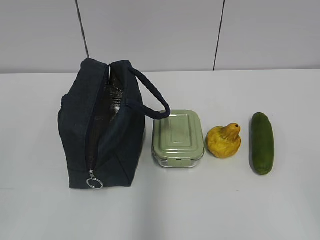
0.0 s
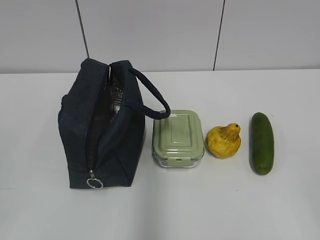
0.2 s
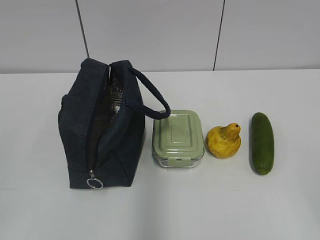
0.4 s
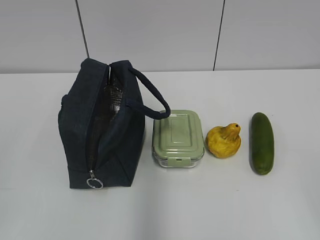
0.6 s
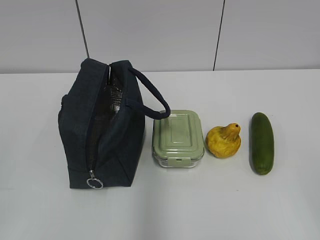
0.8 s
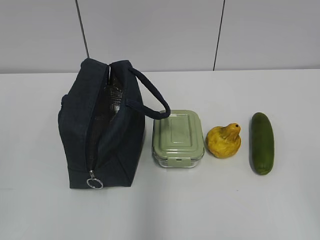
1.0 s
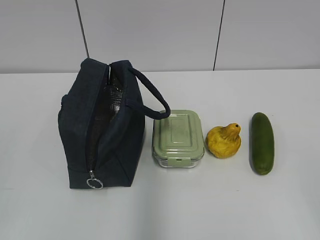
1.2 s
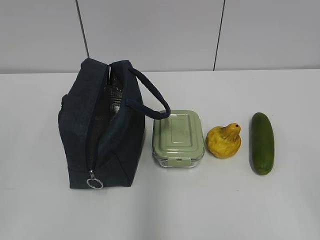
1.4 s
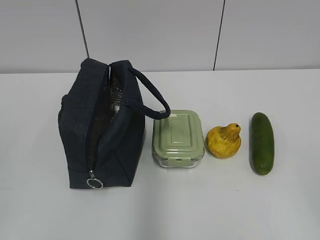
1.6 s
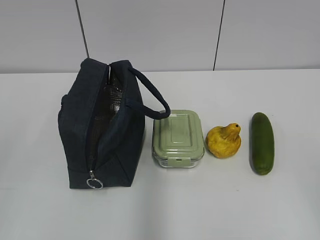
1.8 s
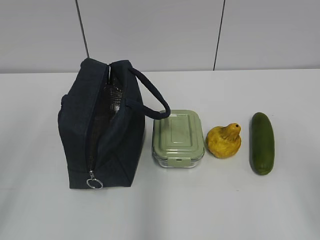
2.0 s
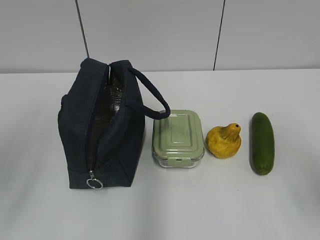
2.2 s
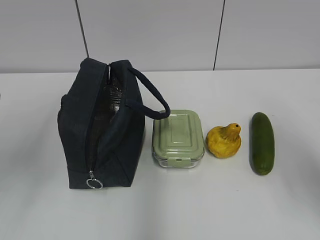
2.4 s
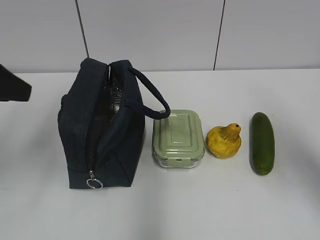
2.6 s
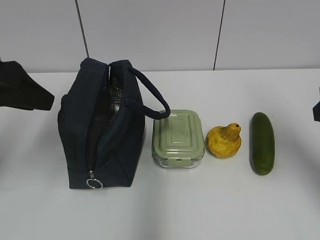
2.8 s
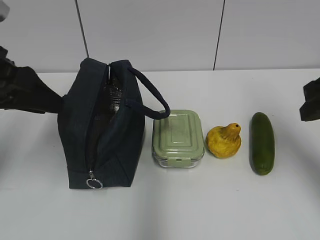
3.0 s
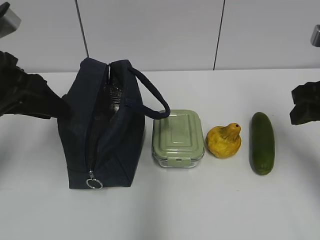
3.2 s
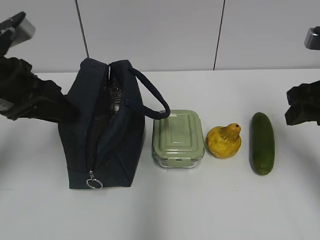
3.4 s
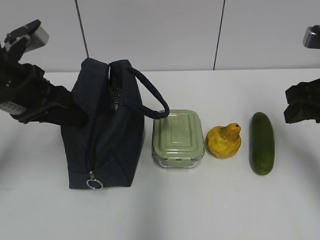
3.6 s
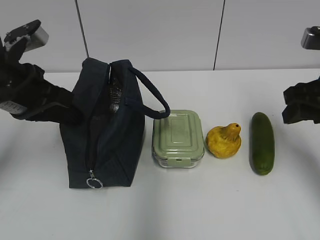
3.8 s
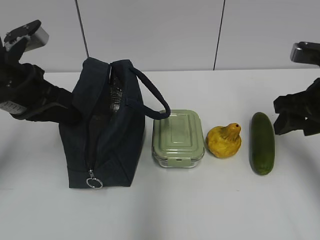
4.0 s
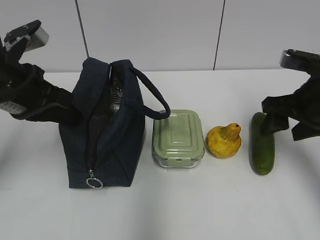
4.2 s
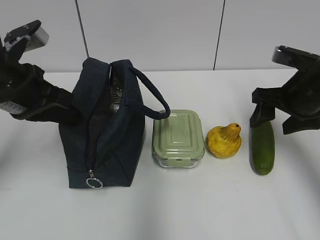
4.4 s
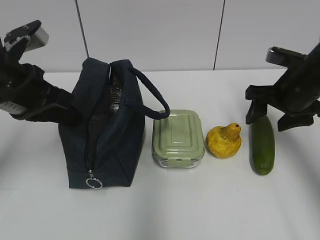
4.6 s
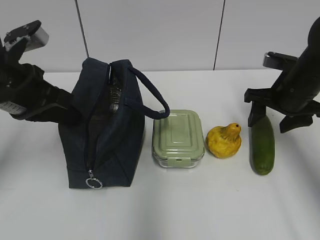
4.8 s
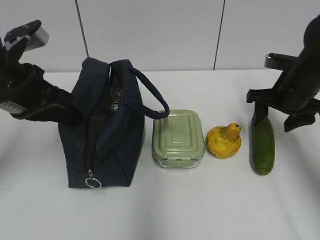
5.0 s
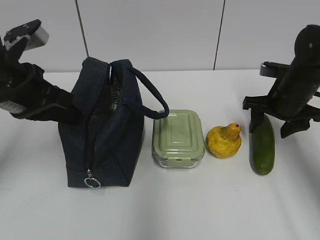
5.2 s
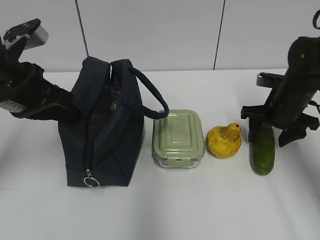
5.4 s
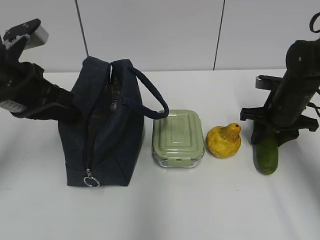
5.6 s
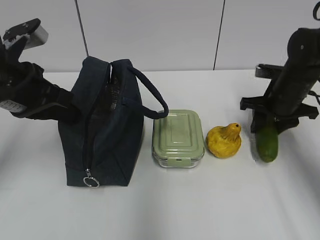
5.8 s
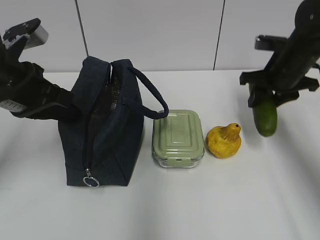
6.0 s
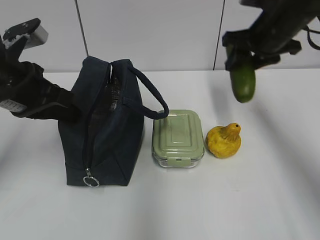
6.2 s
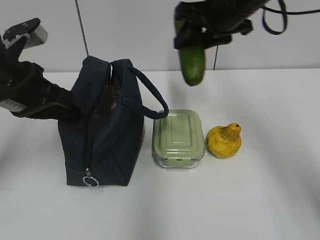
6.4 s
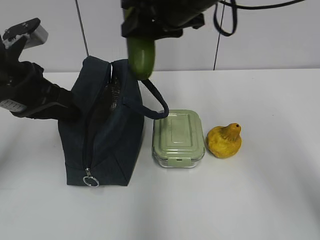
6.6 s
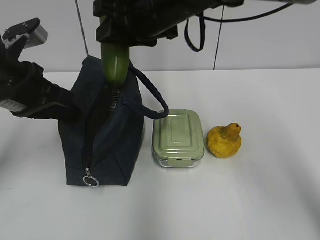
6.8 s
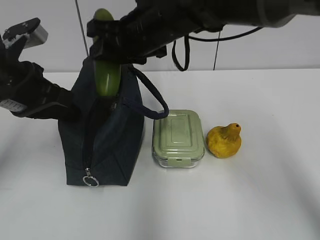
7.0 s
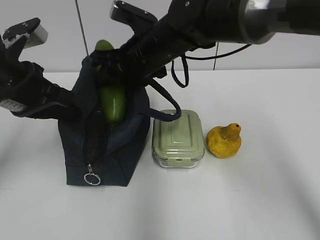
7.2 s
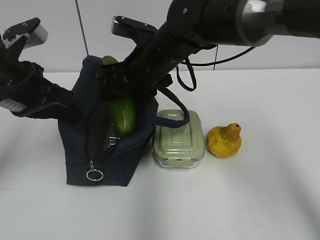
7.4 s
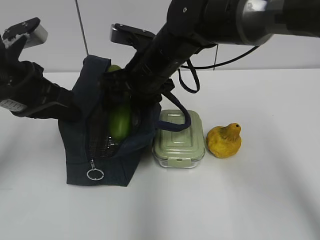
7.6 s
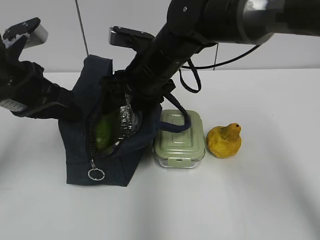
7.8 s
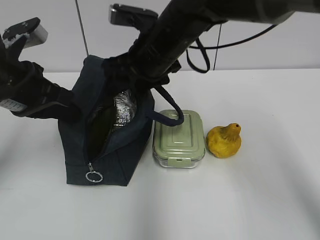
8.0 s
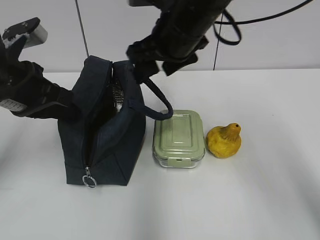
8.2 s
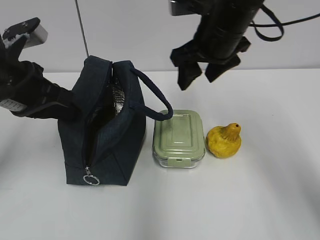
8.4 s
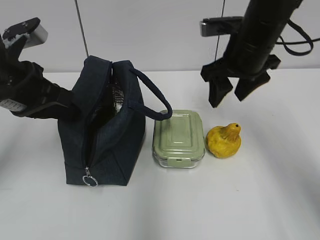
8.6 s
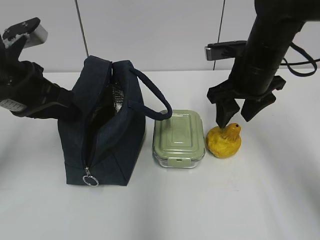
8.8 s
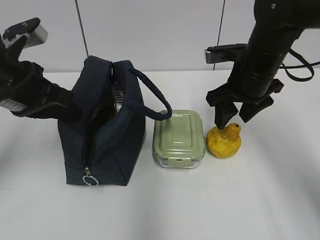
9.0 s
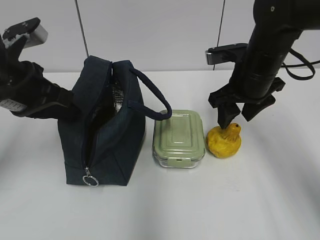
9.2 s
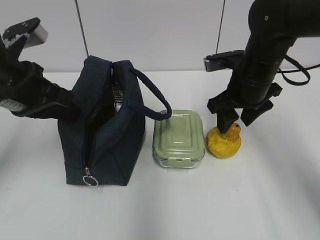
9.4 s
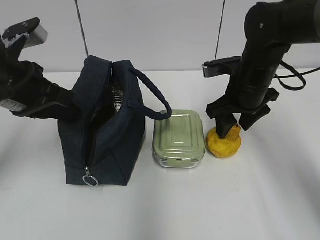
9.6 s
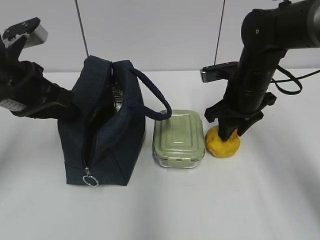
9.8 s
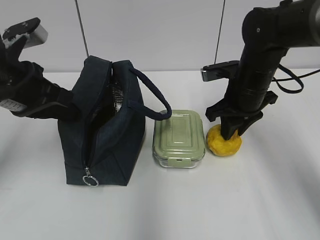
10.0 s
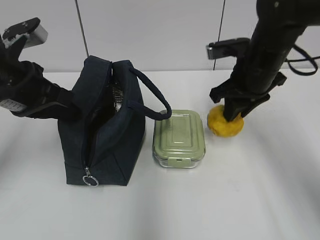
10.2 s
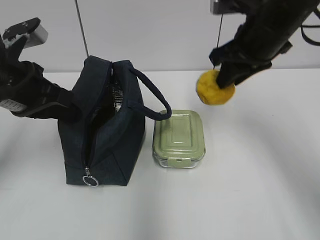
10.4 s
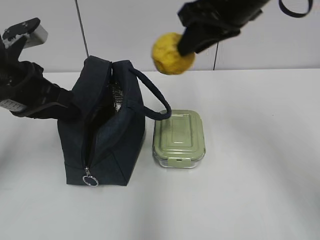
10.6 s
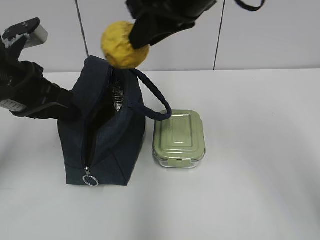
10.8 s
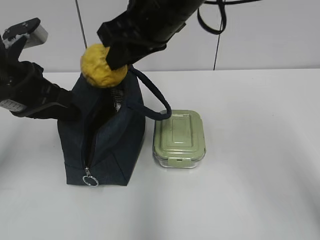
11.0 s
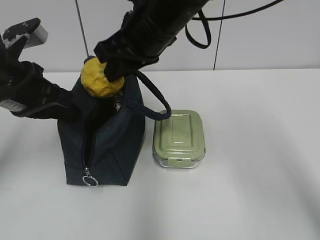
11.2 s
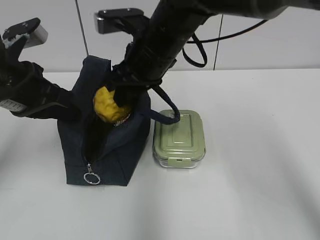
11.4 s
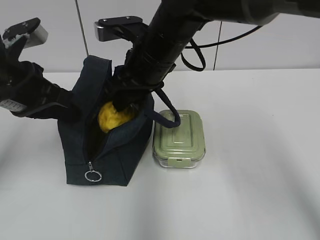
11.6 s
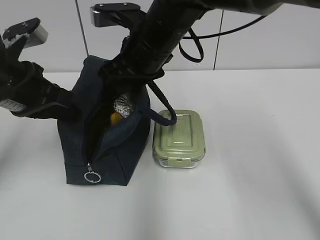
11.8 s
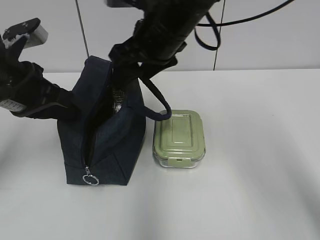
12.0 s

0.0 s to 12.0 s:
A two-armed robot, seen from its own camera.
1.6 to 3.0 s: The two grippers go approximately 25 cm forward.
3.0 to 4.4 s: The left gripper shifts by approximately 5 cm, and closes up. The right gripper heads forward and downward, covering some 10 cm.
4.4 to 6.0 s: The right gripper is displaced forward by about 10 cm, goes downward and returns, approximately 10 cm each way, and closes up.
6.0 to 7.6 s: The right gripper is displaced to the left by approximately 25 cm.
7.6 to 9.0 s: The right gripper heads to the right, covering roughly 15 cm.
9.0 to 10.4 s: The right gripper heads upward, covering some 10 cm, and closes up.
10.4 to 12.0 s: The right gripper goes approximately 10 cm to the left, and opens its fingers.

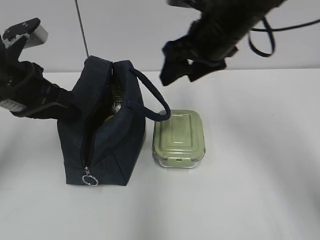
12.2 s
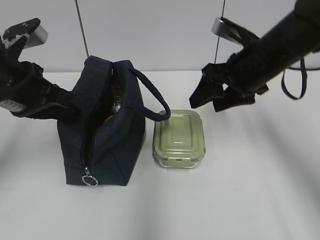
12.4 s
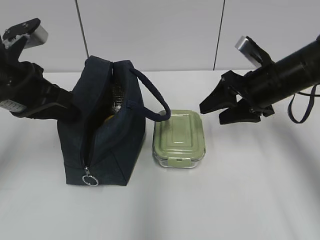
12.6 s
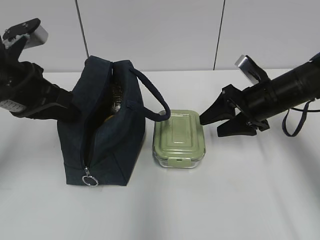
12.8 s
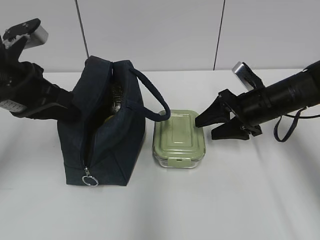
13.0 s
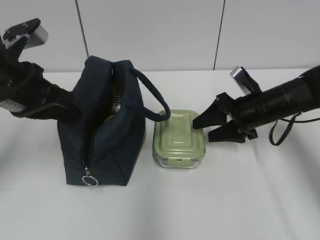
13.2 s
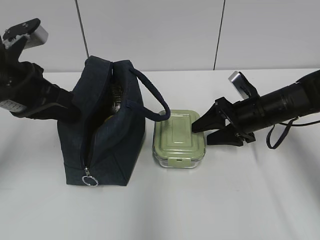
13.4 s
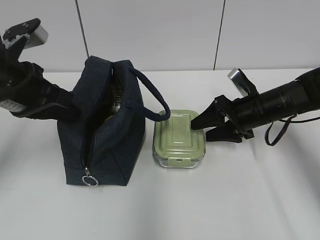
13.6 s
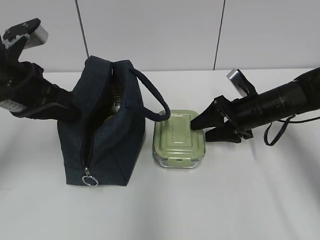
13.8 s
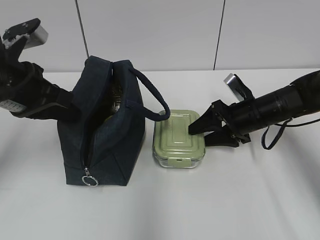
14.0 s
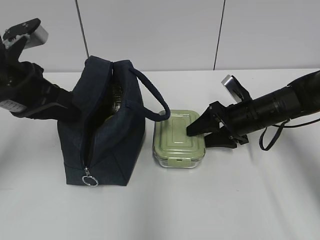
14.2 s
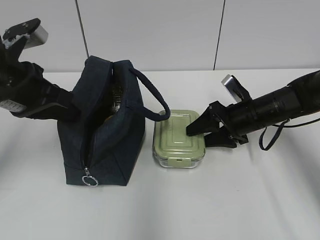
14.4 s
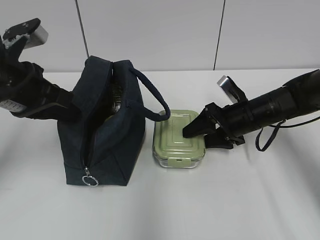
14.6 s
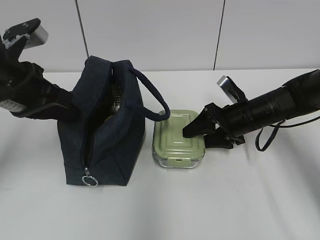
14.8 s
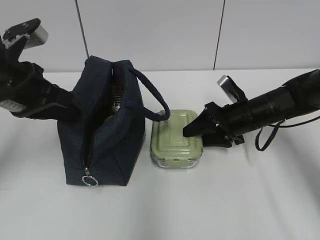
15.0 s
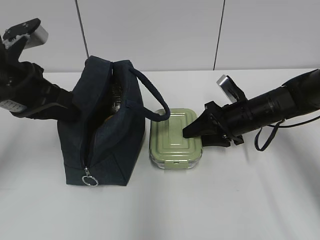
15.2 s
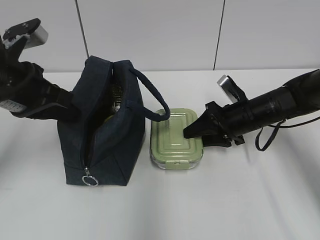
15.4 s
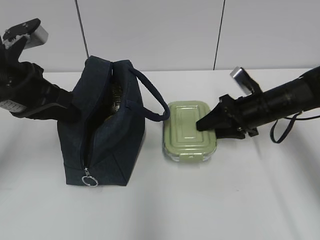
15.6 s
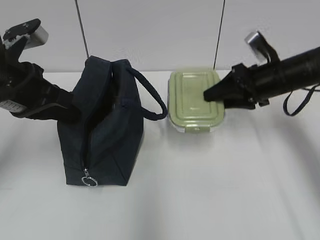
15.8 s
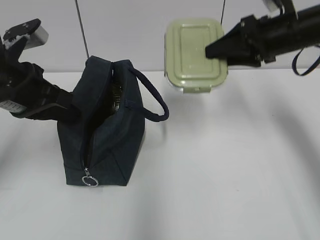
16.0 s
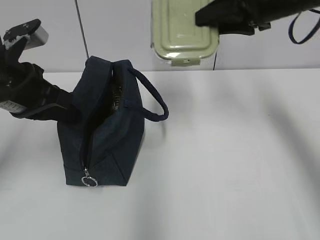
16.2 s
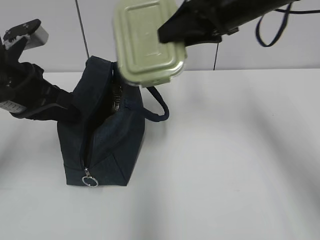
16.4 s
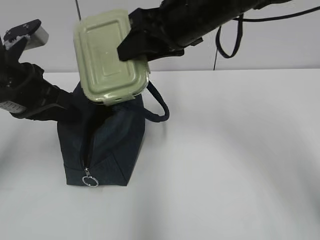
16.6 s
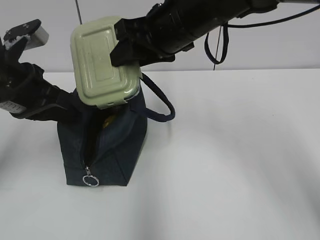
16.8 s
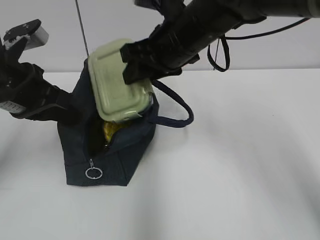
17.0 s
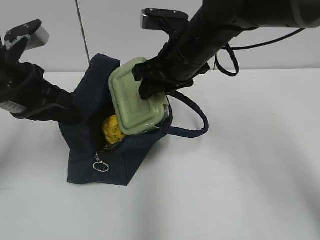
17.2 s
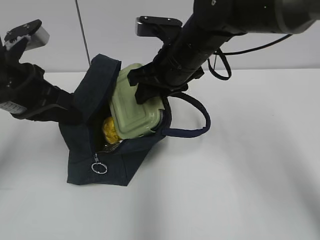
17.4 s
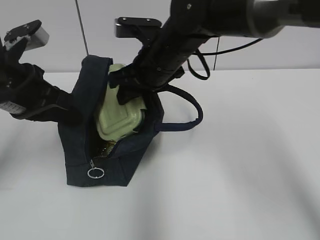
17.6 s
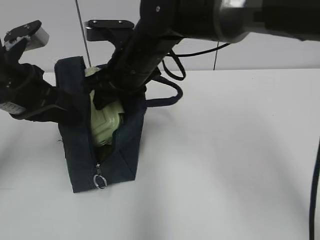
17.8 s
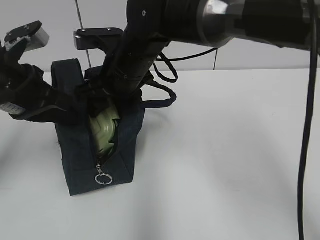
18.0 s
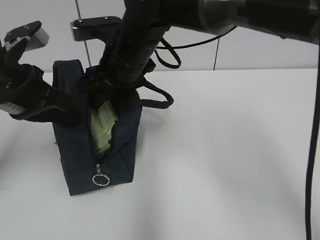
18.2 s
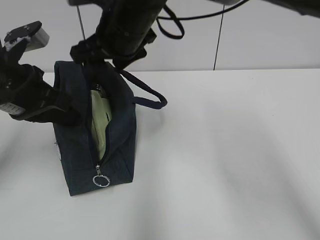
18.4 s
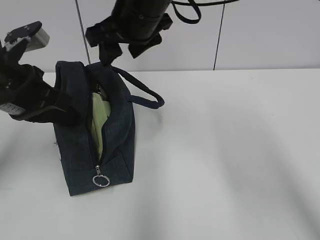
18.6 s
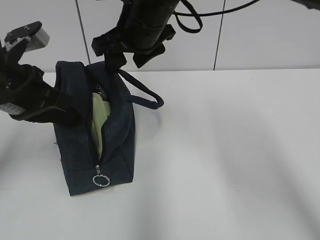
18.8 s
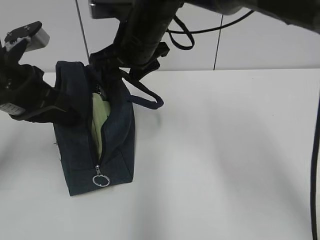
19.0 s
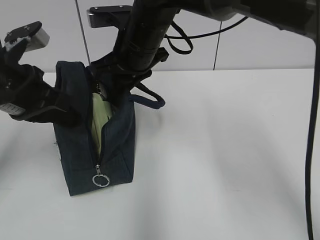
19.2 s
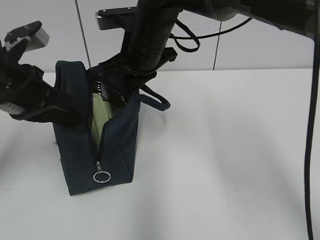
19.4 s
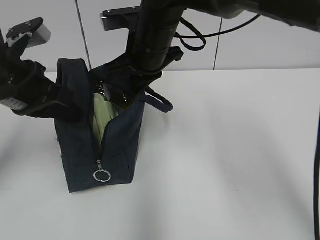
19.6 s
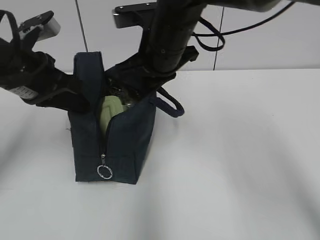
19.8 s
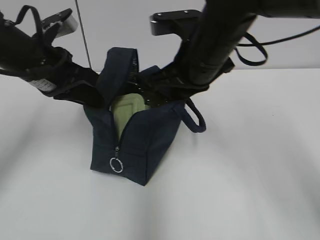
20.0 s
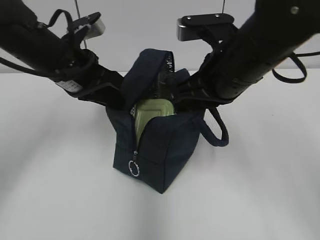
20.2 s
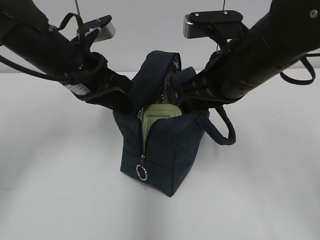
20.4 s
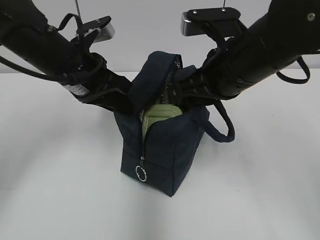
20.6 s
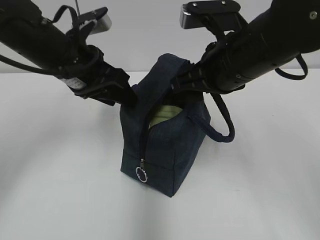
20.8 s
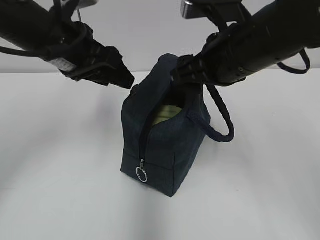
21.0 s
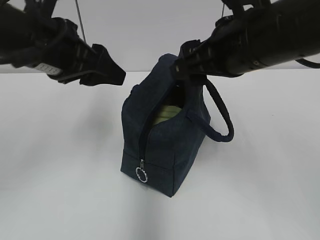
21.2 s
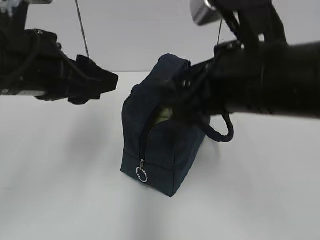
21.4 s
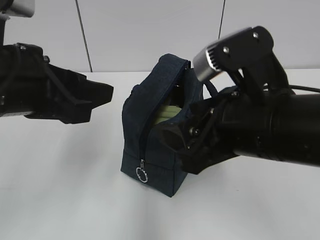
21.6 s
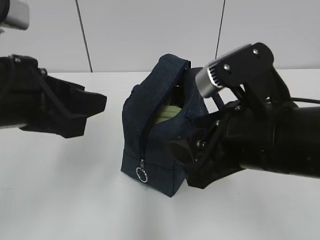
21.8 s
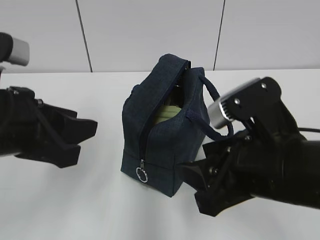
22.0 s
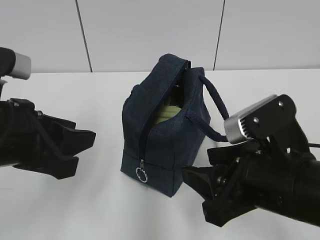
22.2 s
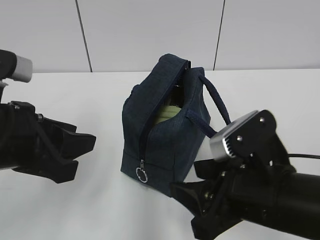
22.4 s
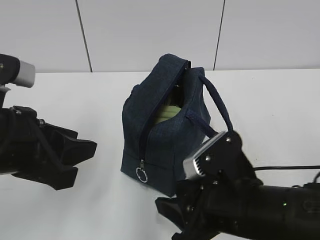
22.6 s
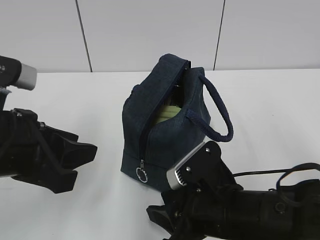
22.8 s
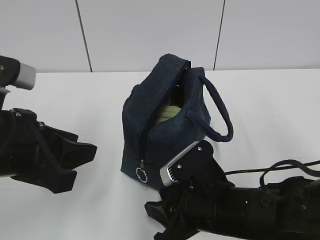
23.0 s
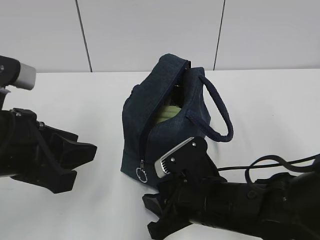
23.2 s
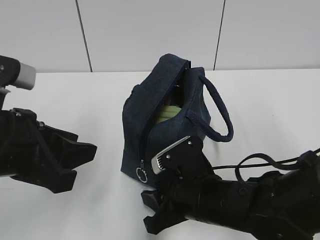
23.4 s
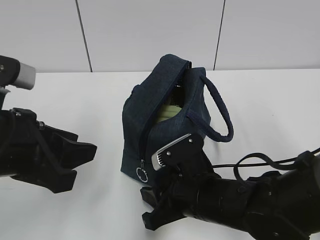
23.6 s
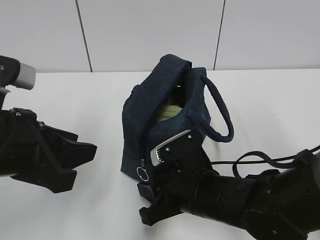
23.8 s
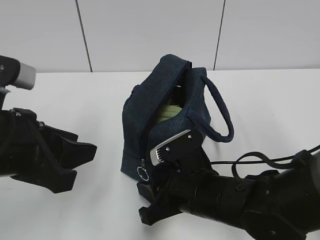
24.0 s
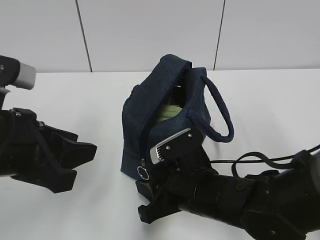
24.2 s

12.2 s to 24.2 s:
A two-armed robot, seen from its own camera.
12.2 to 13.8 s: The right gripper shifts approximately 20 cm downward and to the right.
13.8 to 15.2 s: There are only small adjustments of the grippers.
15.2 to 16.6 s: The right gripper moves upward and to the left, approximately 25 cm.
16.6 to 18.2 s: The right gripper heads to the left and downward, covering approximately 10 cm.
18.2 to 19.8 s: The right gripper moves to the right, roughly 5 cm, and closes its fingers.
19.8 to 21.2 s: The left gripper changes place by about 5 cm, and opens its fingers, while the right gripper heads backward and to the right, covering some 15 cm, and opens up.
21.2 to 22.6 s: The right gripper moves downward and backward, approximately 20 cm, and closes. The left gripper heads backward and downward, covering about 10 cm.
22.6 to 24.2 s: The right gripper shifts roughly 5 cm forward.
